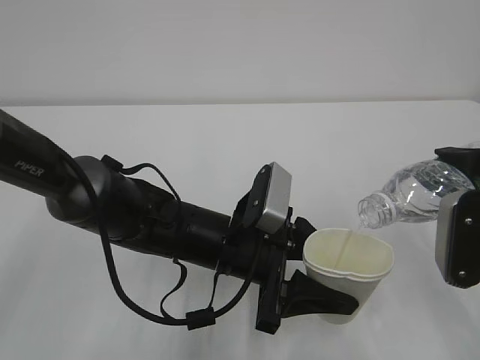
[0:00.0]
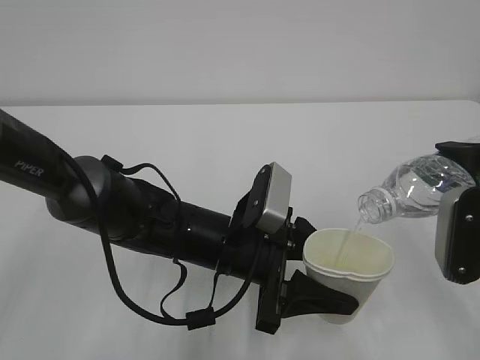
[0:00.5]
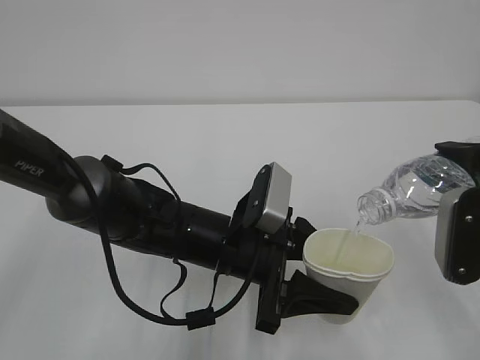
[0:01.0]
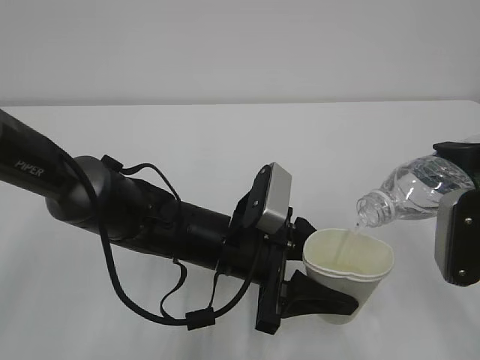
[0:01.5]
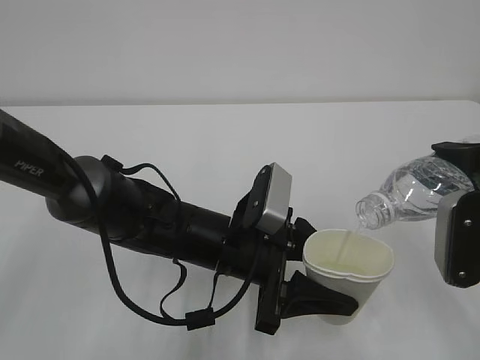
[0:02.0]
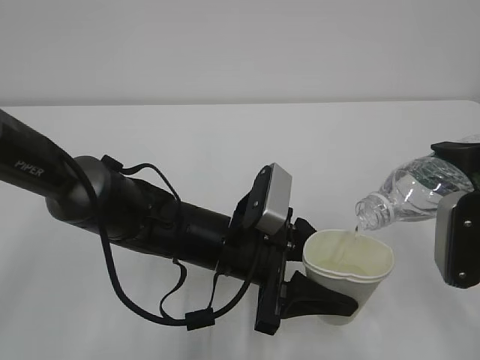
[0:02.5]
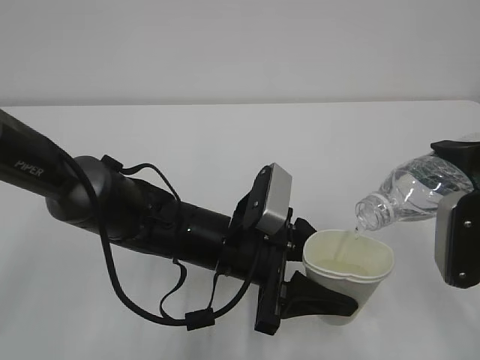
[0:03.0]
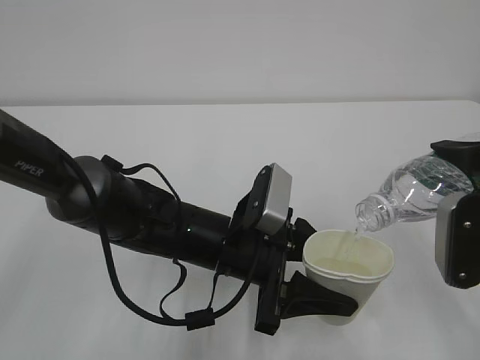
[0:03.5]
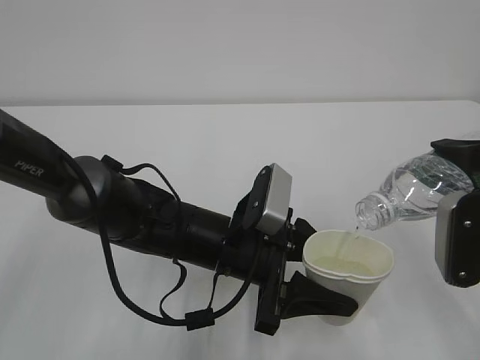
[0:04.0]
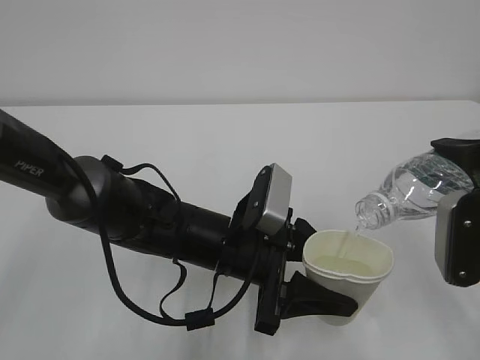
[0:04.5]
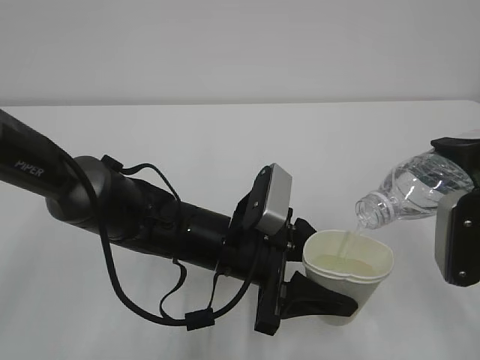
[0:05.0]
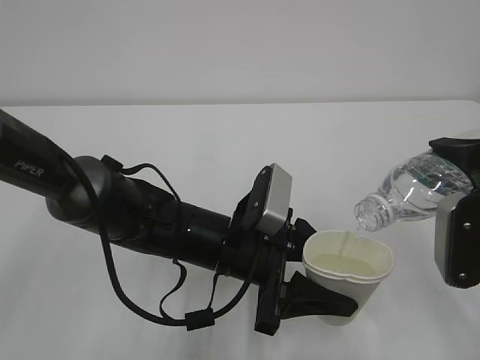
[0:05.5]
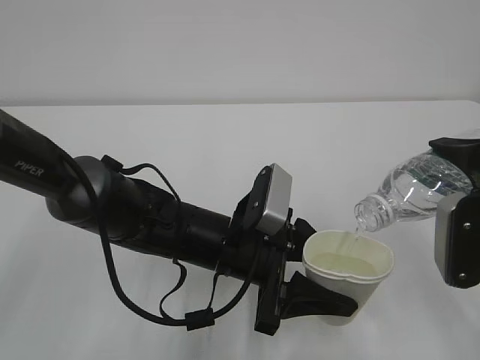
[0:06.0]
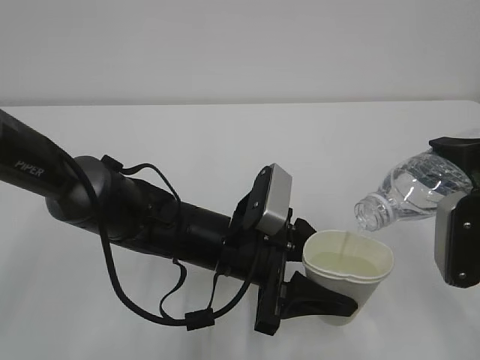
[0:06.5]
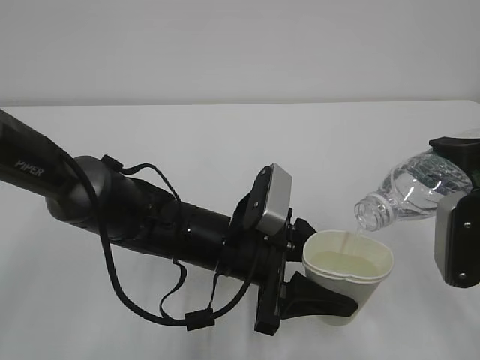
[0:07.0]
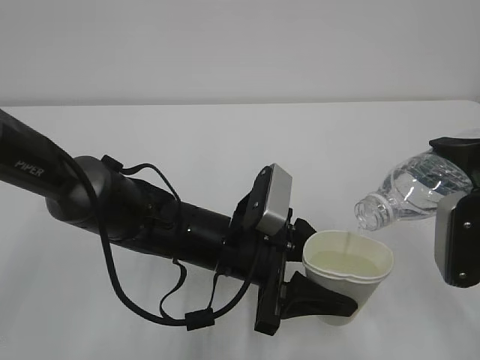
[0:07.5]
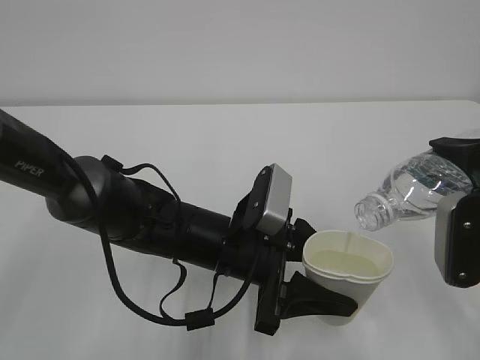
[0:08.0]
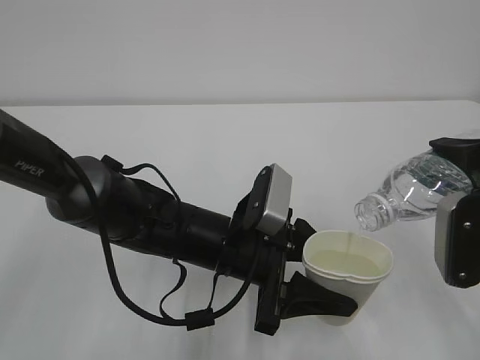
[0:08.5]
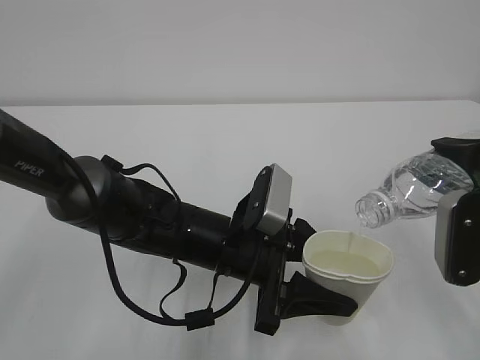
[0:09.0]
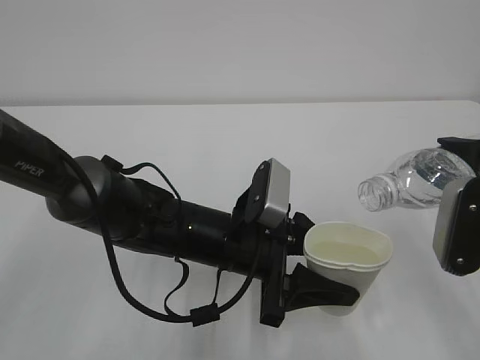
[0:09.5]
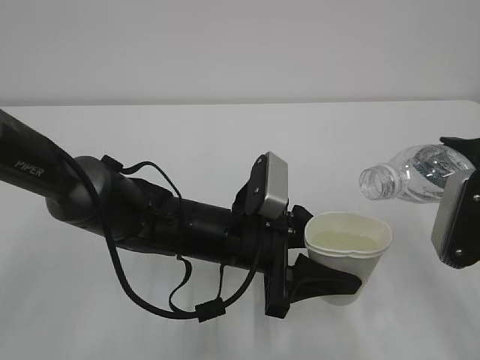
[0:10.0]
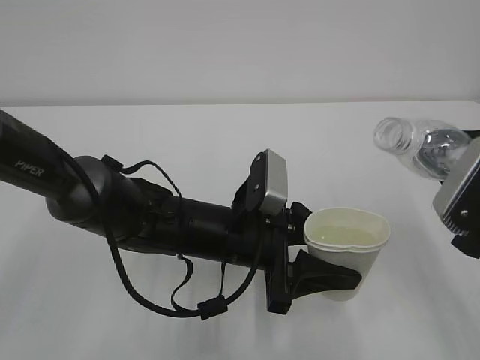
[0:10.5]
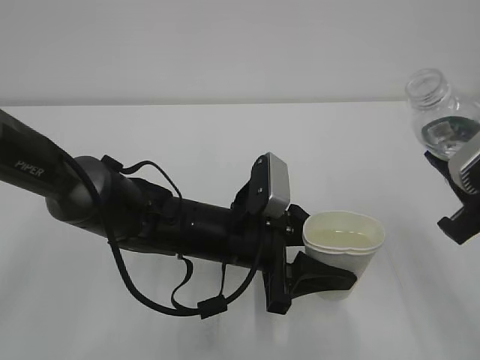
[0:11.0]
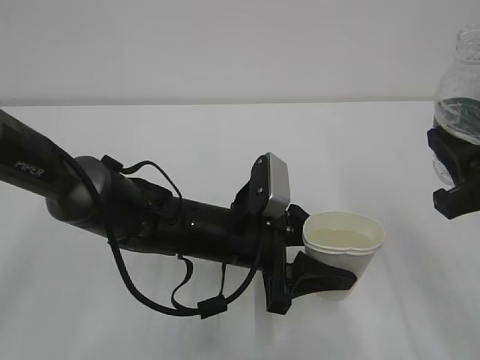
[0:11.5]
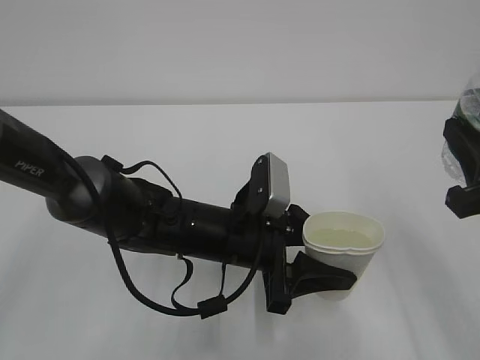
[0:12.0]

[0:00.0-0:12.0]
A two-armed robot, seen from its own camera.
0:00.0 to 0:04.0: Both grippers stay about where they are.
0:04.0 to 0:08.0: Both grippers stay about where they are.
0:08.0 to 0:10.0: The grippers stay close to where they were, moving slightly.

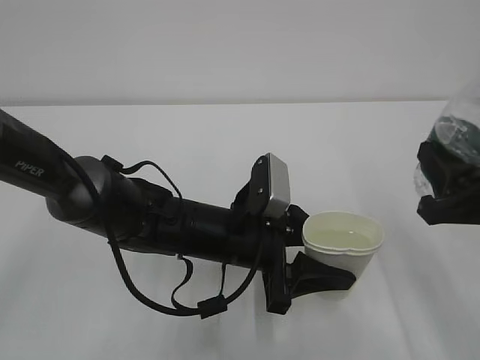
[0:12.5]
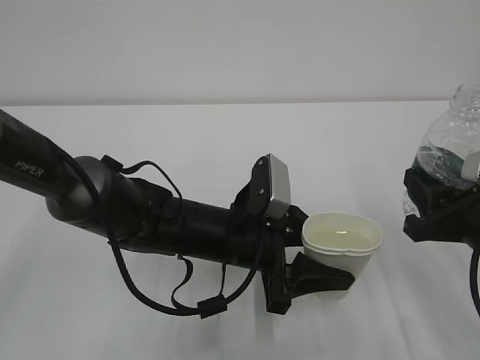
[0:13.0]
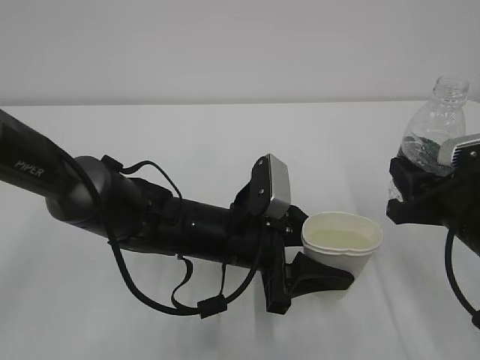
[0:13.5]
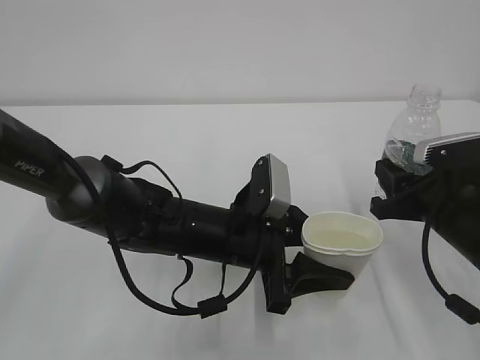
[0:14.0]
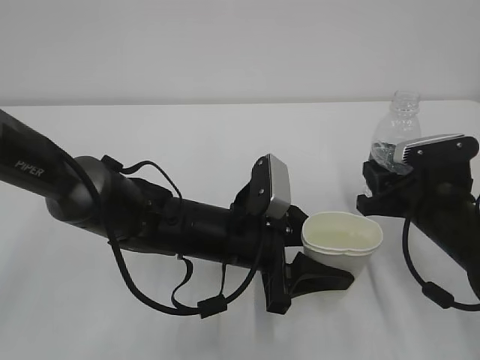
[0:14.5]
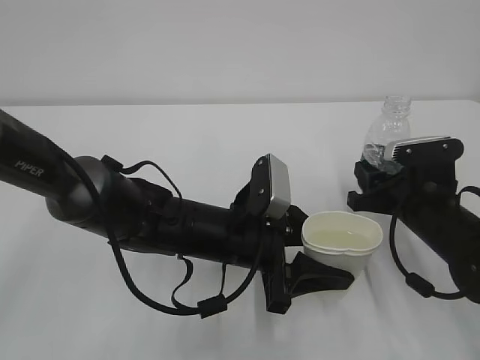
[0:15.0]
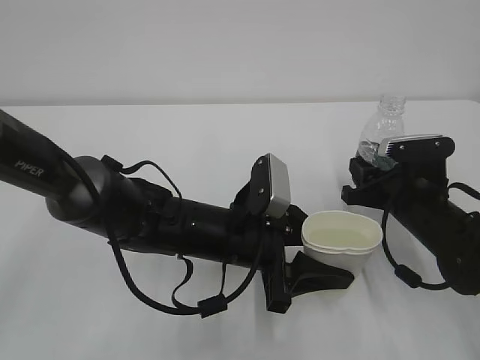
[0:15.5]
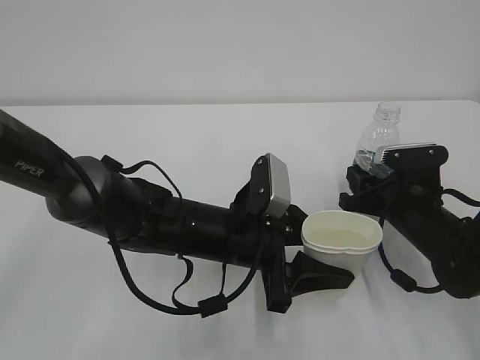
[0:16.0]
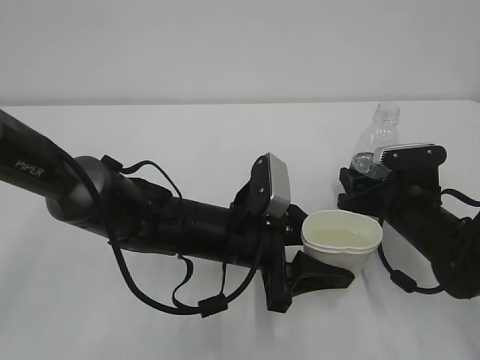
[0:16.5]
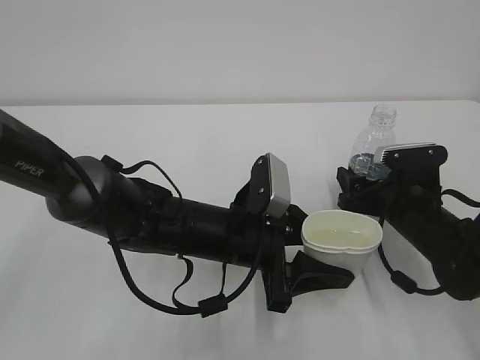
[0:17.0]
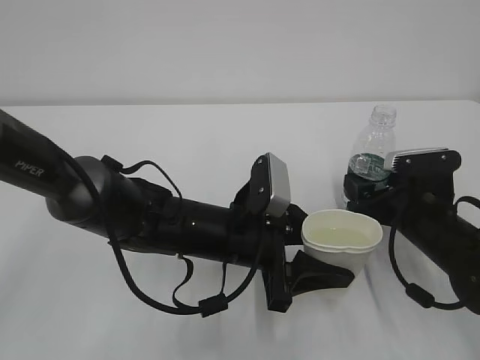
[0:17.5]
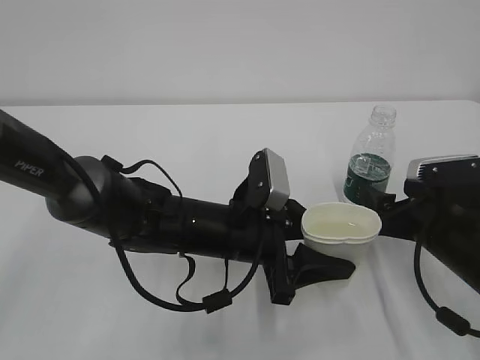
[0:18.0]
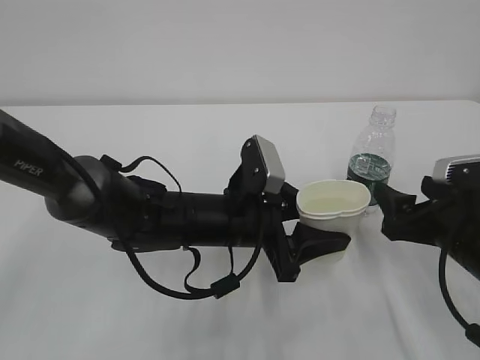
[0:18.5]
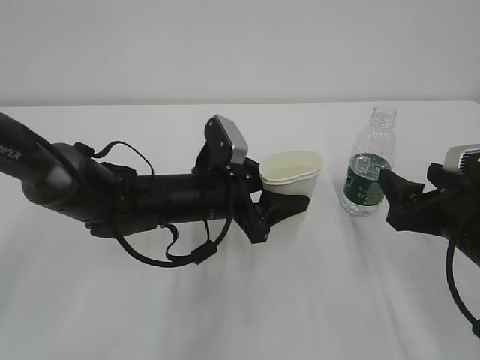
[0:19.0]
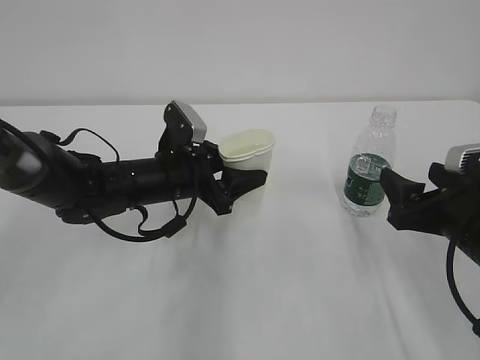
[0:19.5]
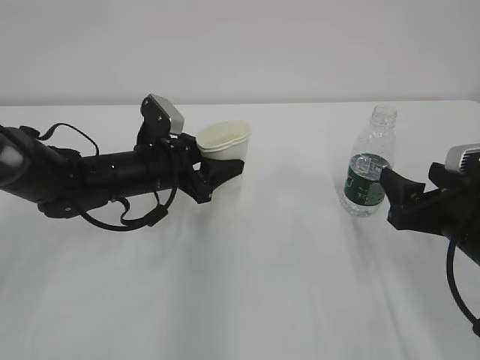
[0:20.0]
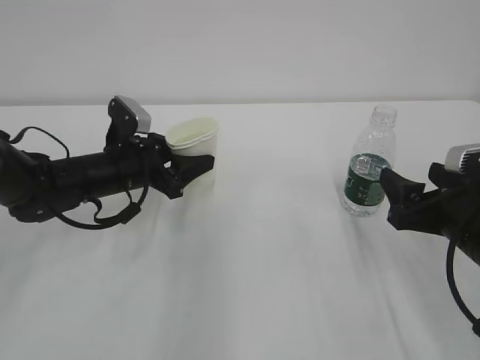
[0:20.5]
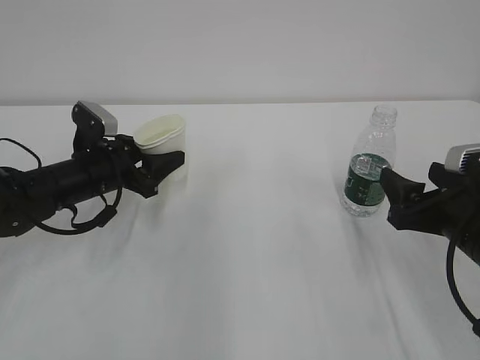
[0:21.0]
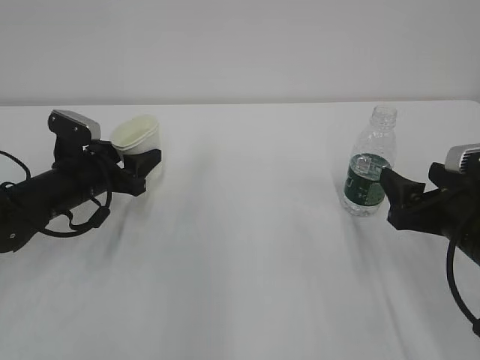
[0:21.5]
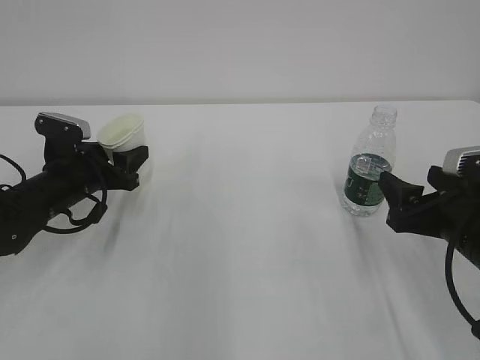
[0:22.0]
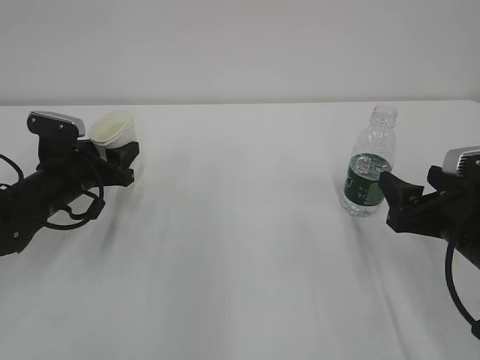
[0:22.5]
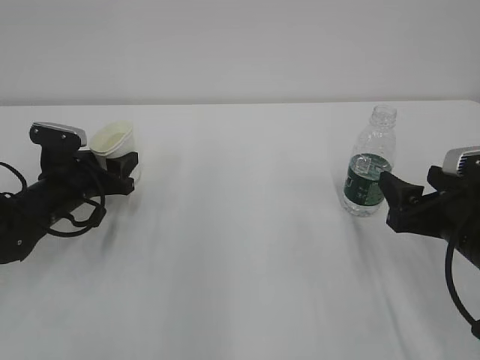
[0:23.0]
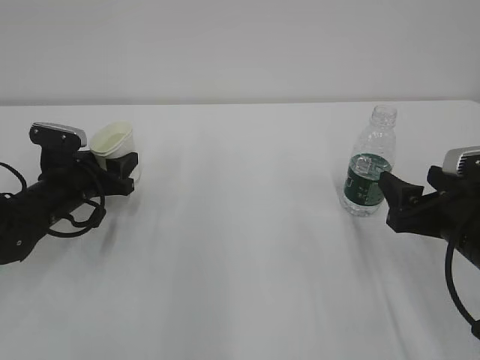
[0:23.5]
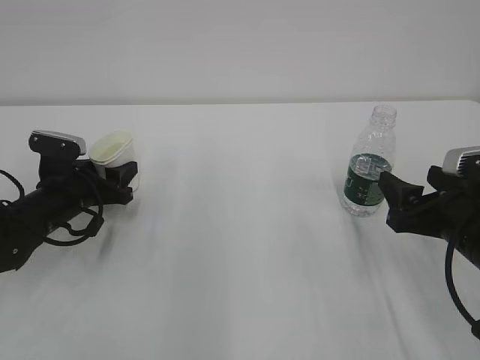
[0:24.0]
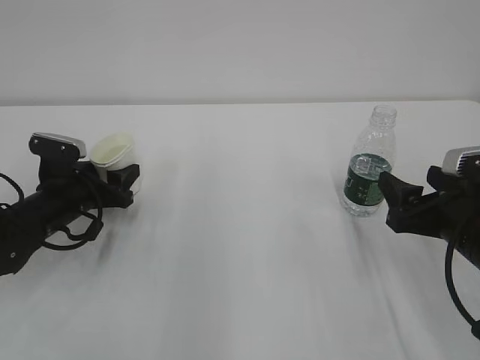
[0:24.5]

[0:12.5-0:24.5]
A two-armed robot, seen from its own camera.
0:12.5 to 0:14.5: The right gripper travels forward and downward by roughly 10 cm.
0:14.5 to 0:16.5: The right gripper changes place by about 5 cm, and opens its fingers.
0:16.5 to 0:18.5: The right gripper shifts some 10 cm backward.
0:18.5 to 0:20.5: The left gripper moves to the left and forward, about 20 cm.
0:20.5 to 0:22.5: The left gripper is displaced to the left by about 10 cm.
0:22.5 to 0:24.5: The grippers stay close to where they were, moving slightly.

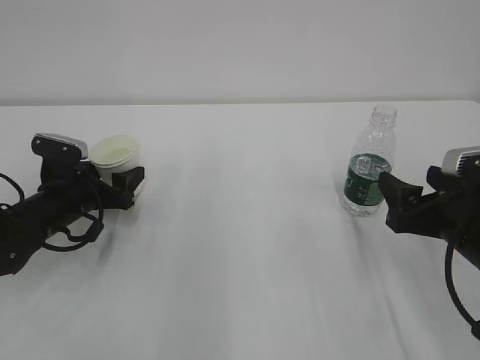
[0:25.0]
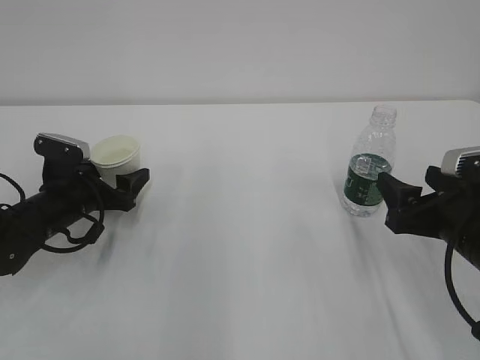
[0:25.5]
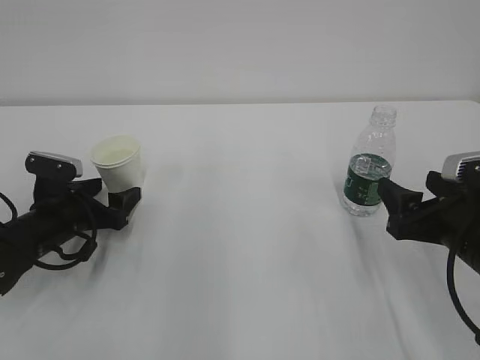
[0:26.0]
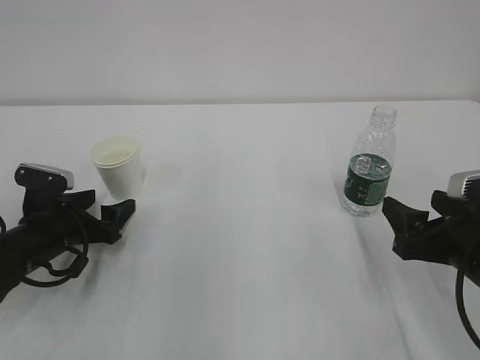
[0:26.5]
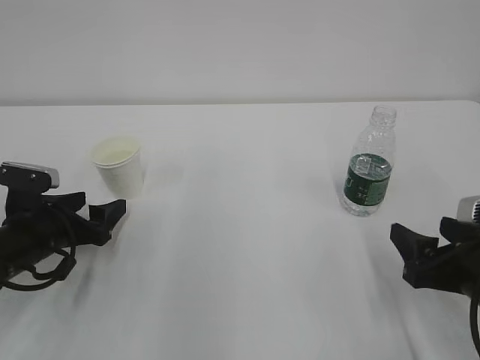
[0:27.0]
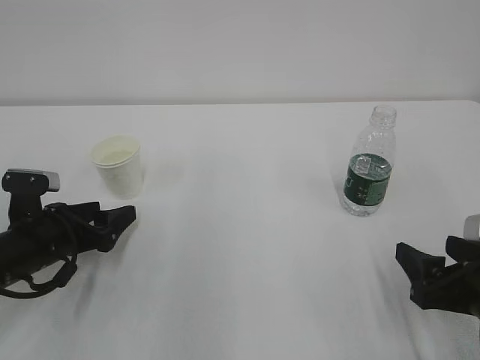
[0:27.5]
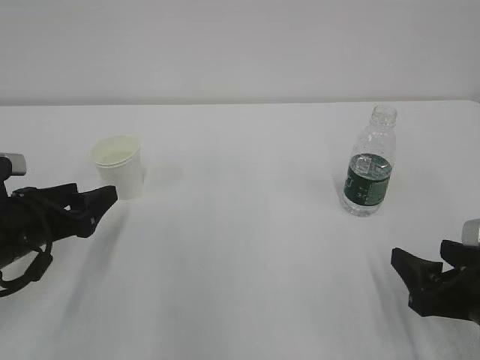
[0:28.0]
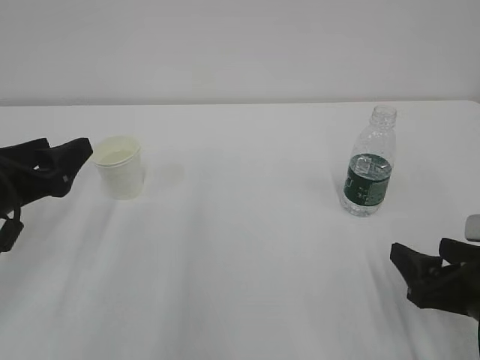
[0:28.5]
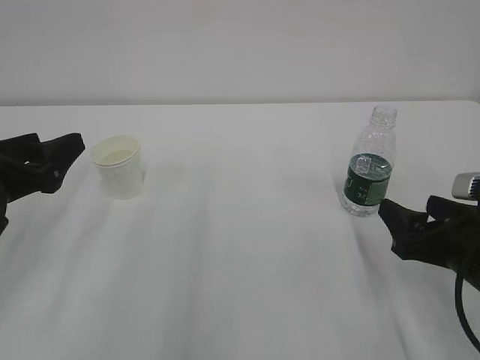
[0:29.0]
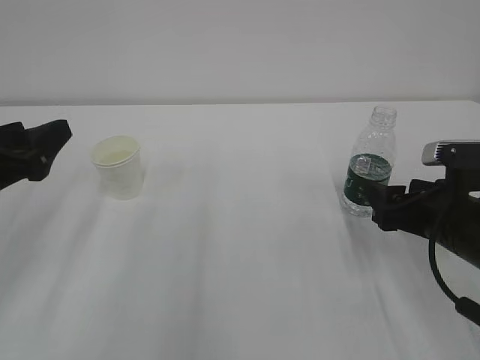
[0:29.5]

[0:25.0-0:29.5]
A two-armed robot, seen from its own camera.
0:25.0 to 0:27.0: The left gripper heads backward, covering about 5 cm.
0:27.0 to 0:29.5: The right gripper goes roughly 5 cm forward; the left gripper travels upward by approximately 15 cm.
